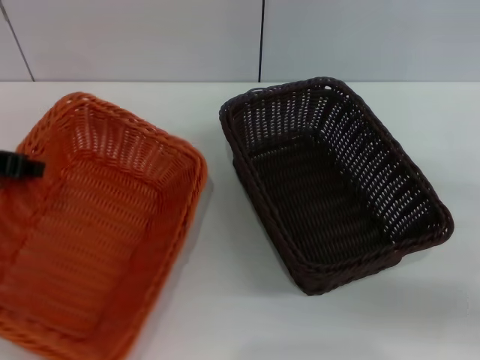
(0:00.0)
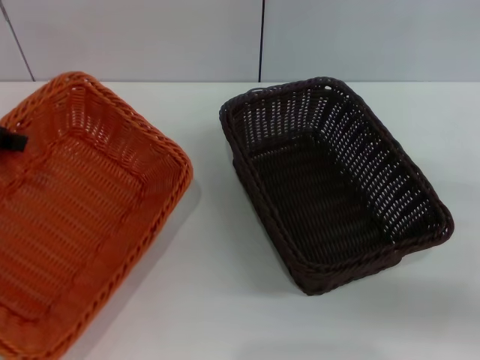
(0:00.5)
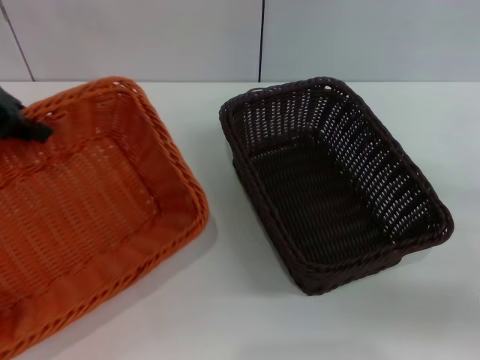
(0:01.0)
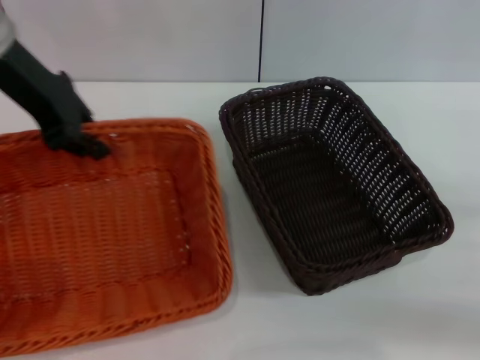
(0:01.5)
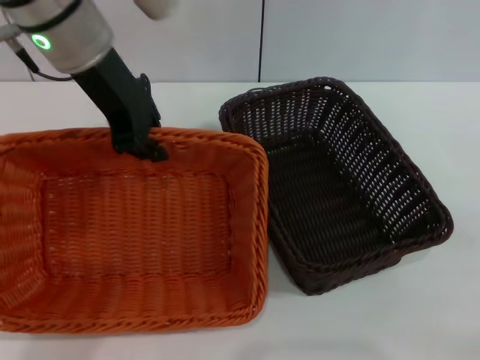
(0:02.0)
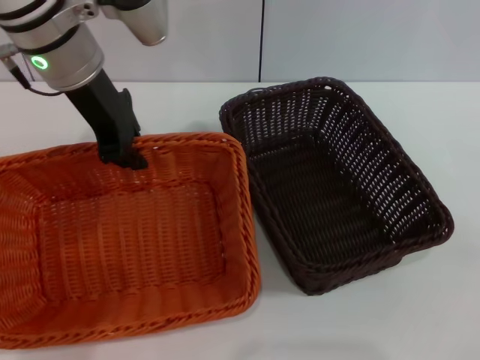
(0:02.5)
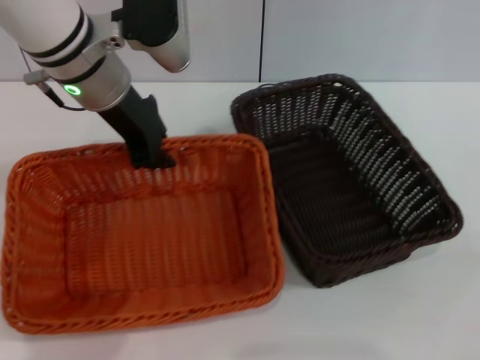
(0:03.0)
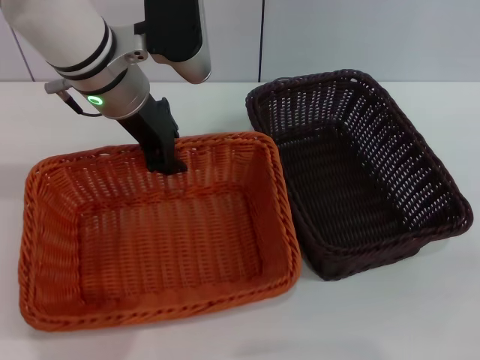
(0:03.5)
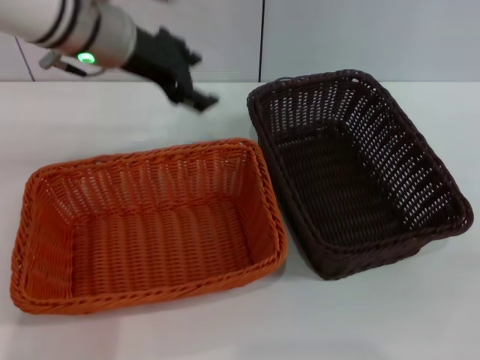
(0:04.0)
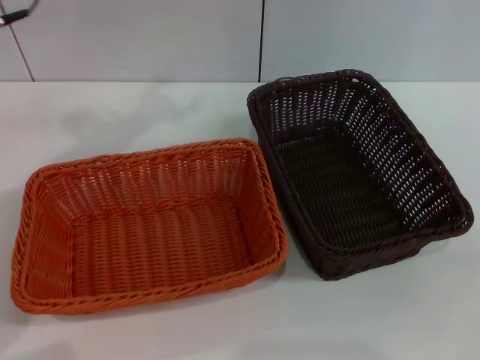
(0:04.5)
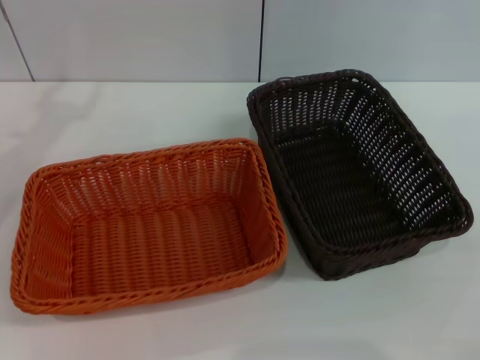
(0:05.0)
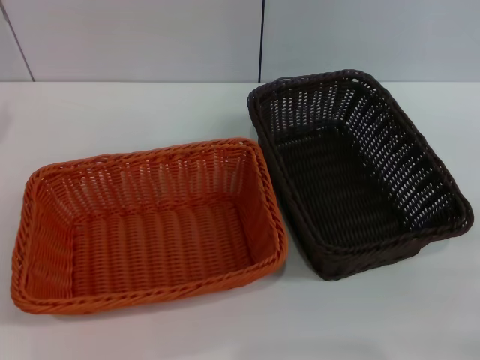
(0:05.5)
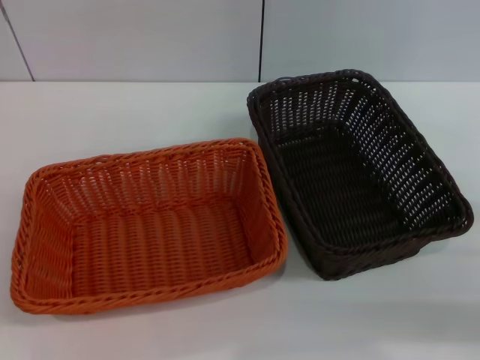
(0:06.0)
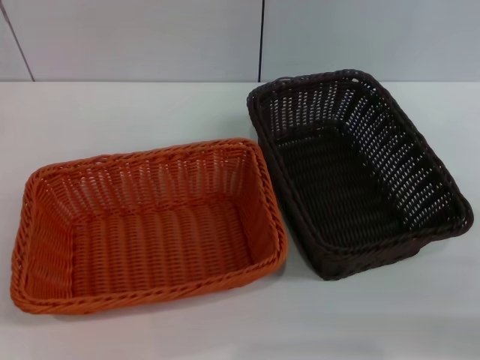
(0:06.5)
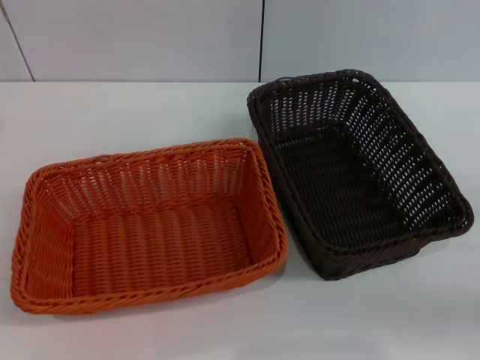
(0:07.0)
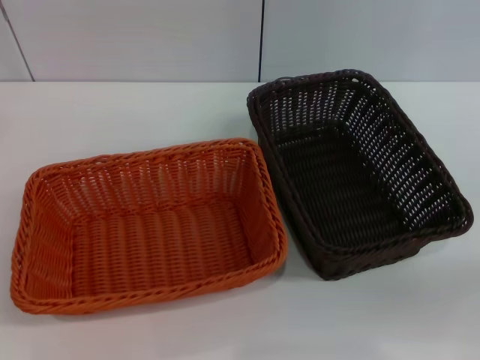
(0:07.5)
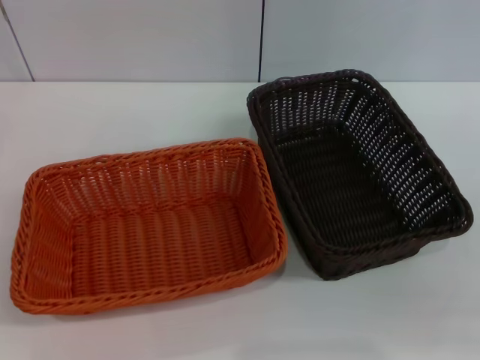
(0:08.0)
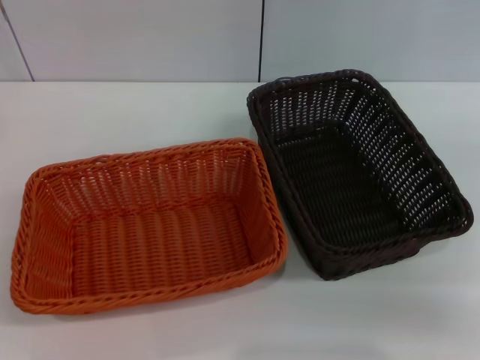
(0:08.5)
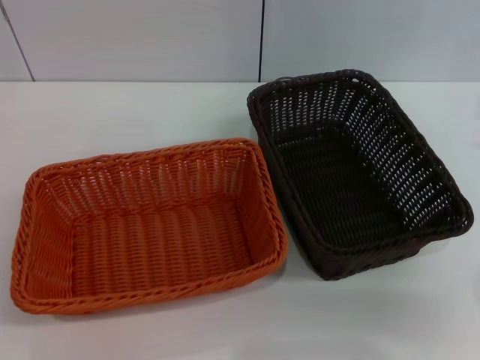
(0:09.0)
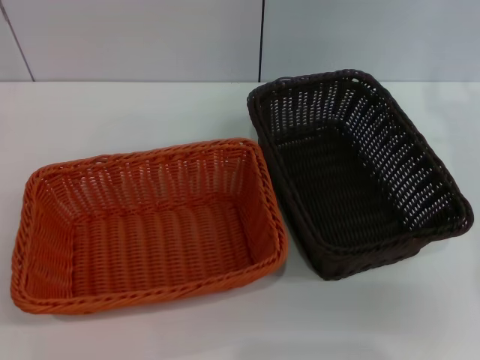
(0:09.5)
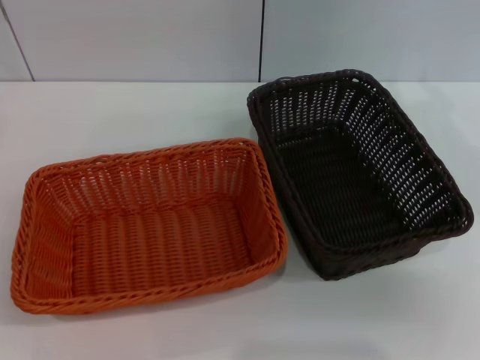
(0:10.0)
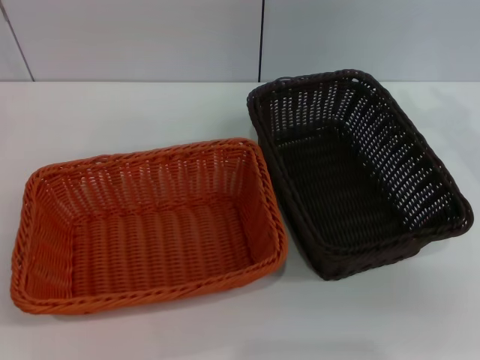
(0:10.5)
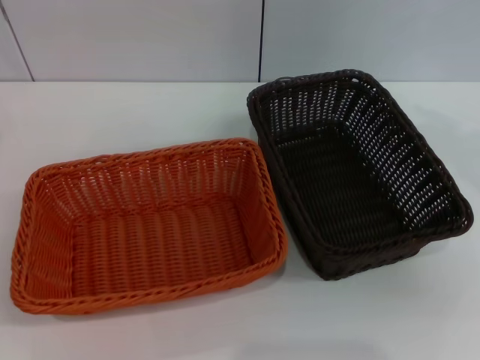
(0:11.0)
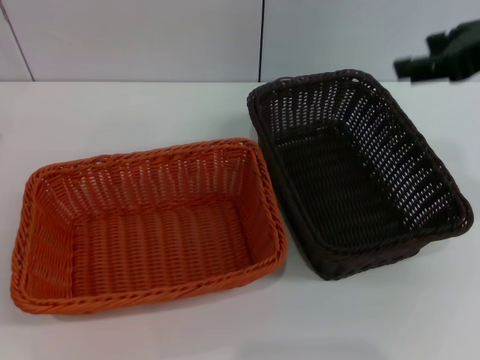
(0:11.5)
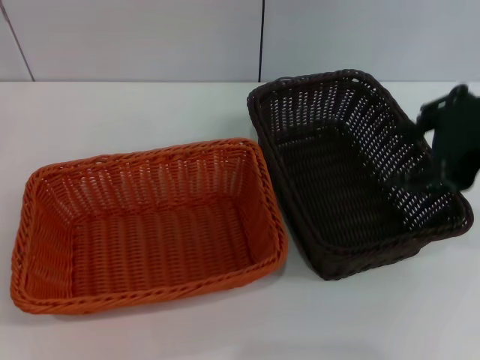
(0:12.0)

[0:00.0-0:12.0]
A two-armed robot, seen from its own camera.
Step, 0:00.5 to 0:03.5: Place the light basket in the center of view with the left gripper.
0:00.0 to 0:02.0: The left gripper goes about 20 cm to the right, forward and upward. Meanwhile the right gripper shifts roughly 5 cm backward.
0:02.0 to 0:04.0: The left gripper opens up.
0:04.0 to 0:06.0: The right gripper is displaced forward by some 5 cm. The left gripper shifts some 30 cm to the left, backward and downward.
0:10.0 to 0:12.0: The right gripper heads backward, covering approximately 5 cm.

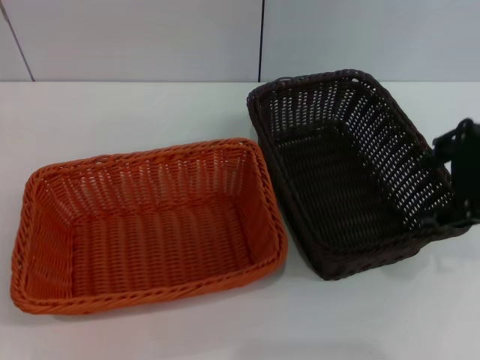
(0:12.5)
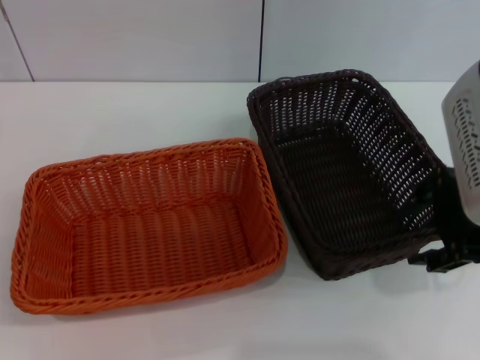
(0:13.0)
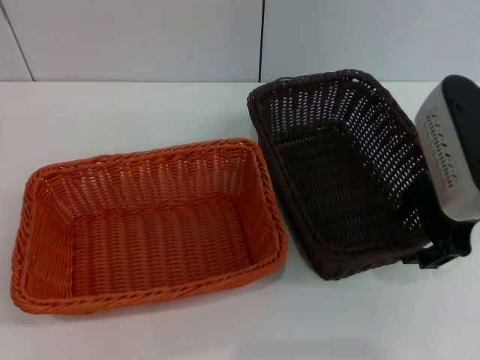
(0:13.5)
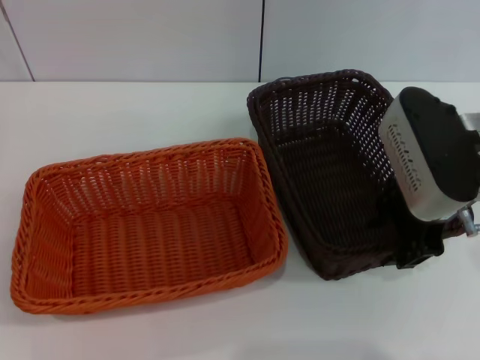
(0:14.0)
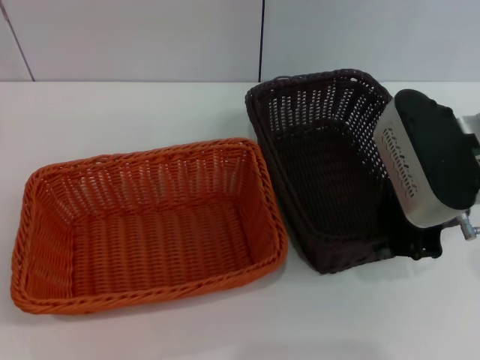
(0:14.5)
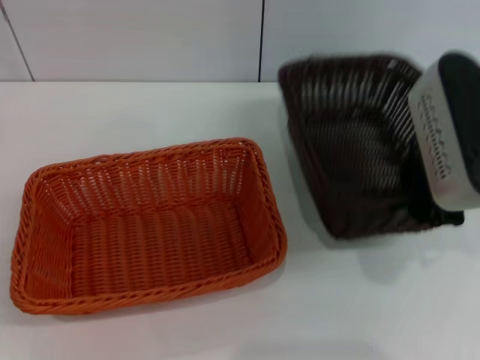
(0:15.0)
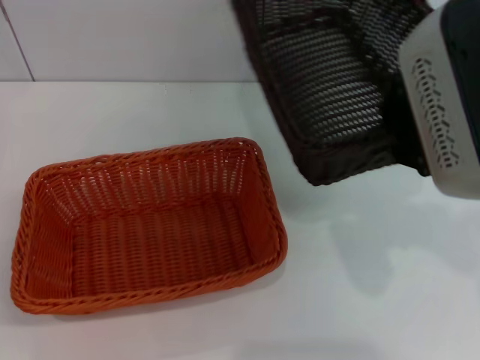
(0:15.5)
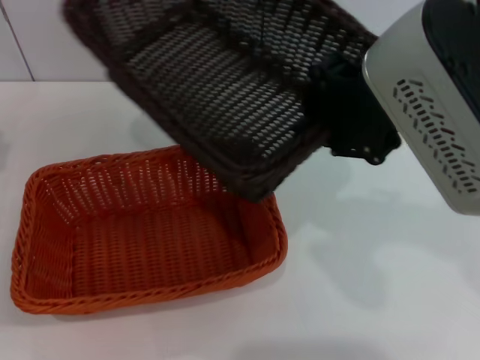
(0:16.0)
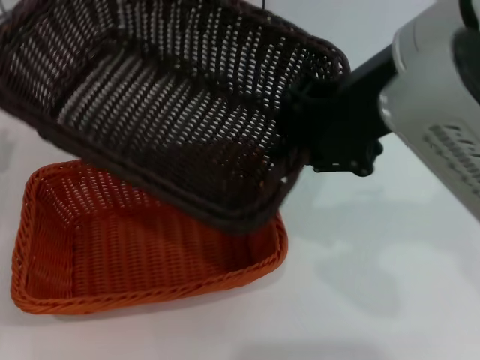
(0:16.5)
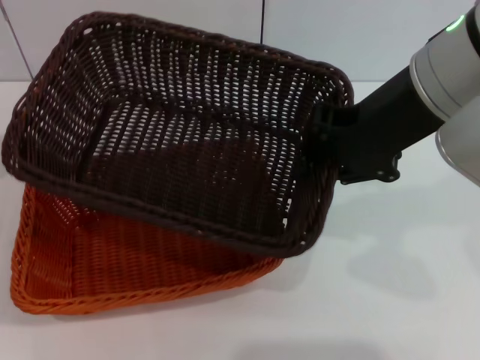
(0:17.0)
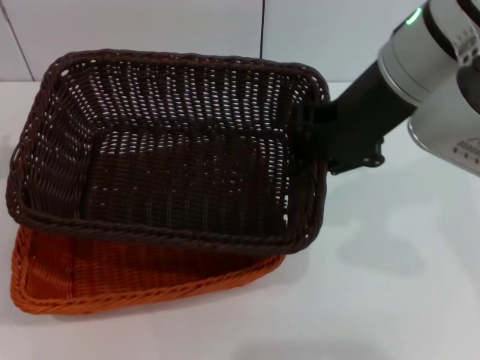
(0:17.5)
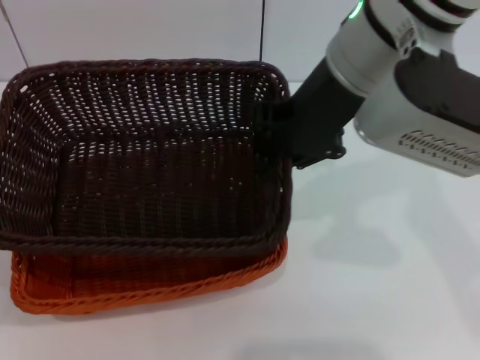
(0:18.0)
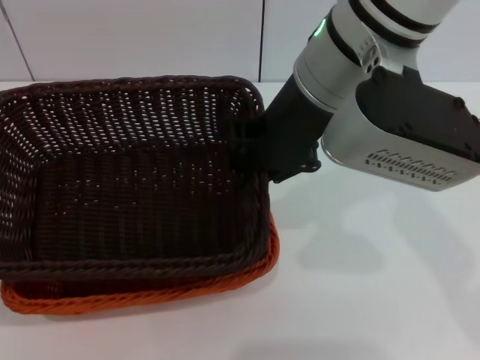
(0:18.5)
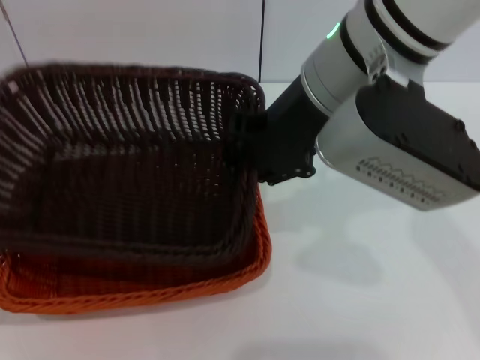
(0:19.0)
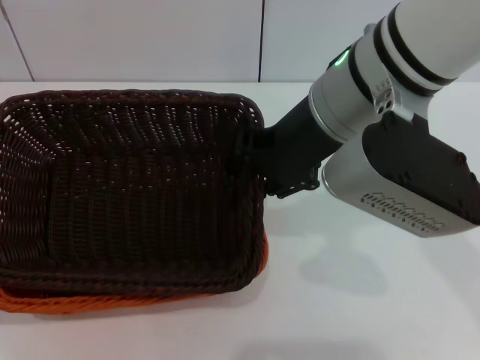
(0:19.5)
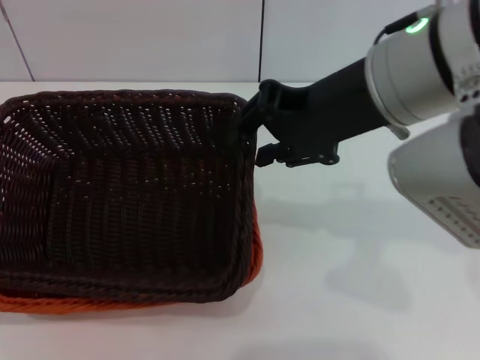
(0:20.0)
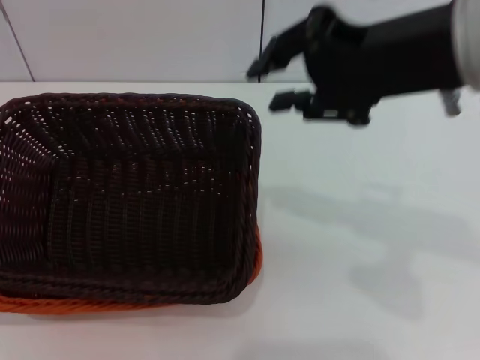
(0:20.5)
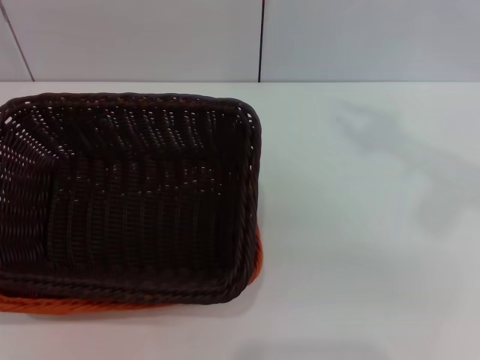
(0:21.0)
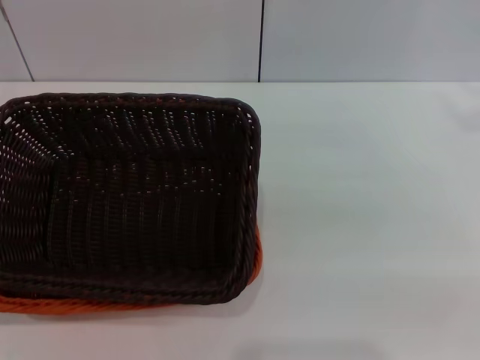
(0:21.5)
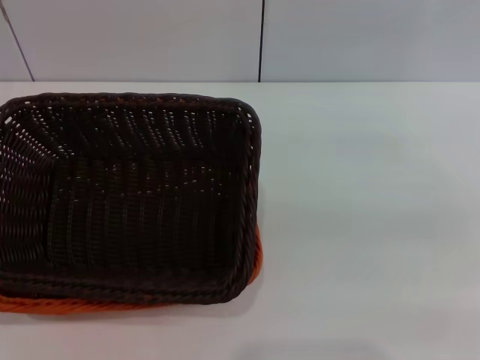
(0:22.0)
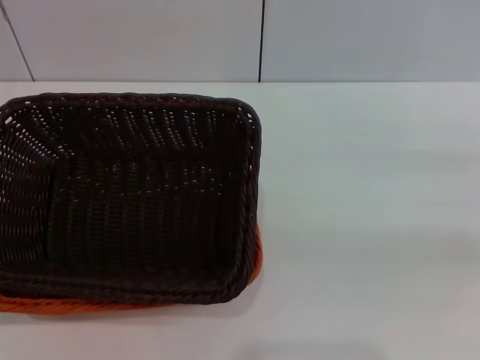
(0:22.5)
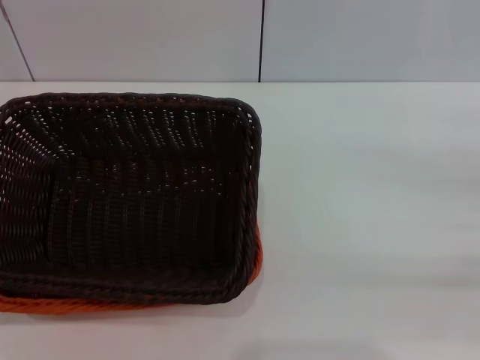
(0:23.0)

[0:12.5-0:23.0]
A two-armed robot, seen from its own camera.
Step, 0:12.5 to 0:15.0: Pick up the dark basket with the right gripper.
Step, 0:15.5 to 0:20.0: Place the dark basket on the light basket with the right gripper.
0:12.5 to 0:14.5: The right gripper goes approximately 10 cm downward, and closes up.
0:14.5 to 0:16.5: The right gripper moves upward and to the left, about 15 cm.
0:16.5 to 0:19.0: The right gripper moves some 10 cm.
0:19.0 to 0:21.0: The right gripper heads to the right and upward, covering about 20 cm, and opens.
0:21.0 to 0:23.0: The right gripper heads downward and to the right, covering some 30 cm, and opens.
